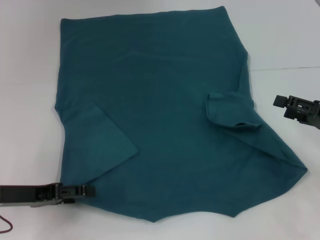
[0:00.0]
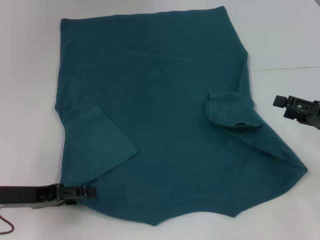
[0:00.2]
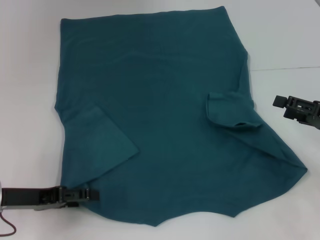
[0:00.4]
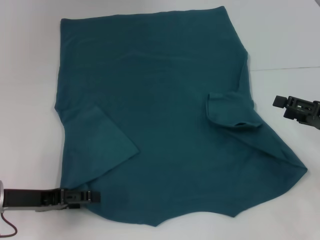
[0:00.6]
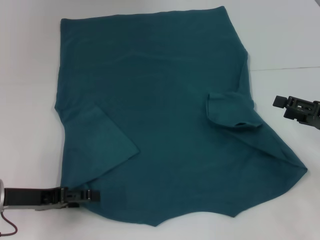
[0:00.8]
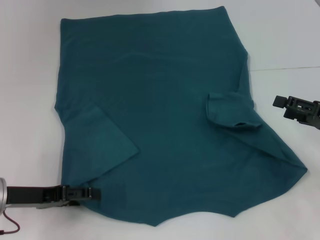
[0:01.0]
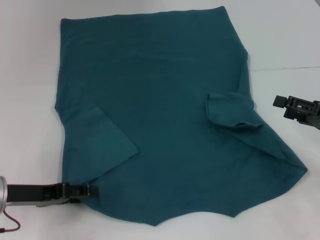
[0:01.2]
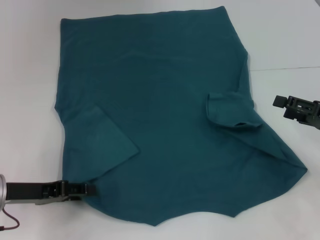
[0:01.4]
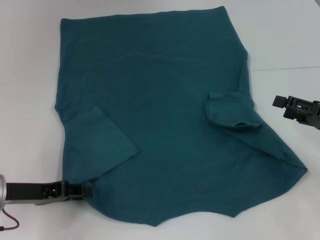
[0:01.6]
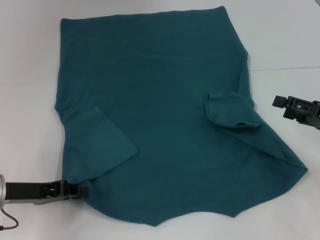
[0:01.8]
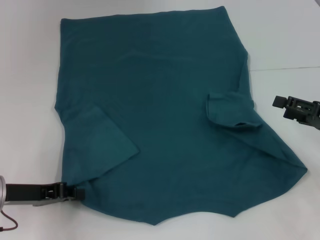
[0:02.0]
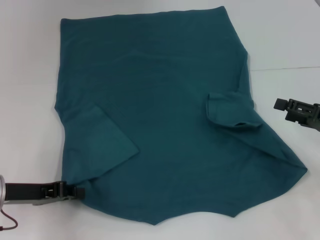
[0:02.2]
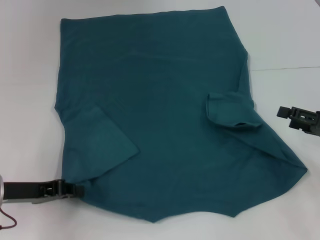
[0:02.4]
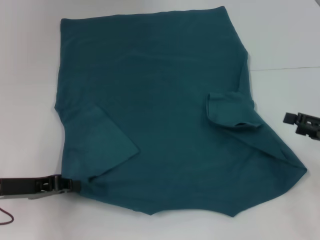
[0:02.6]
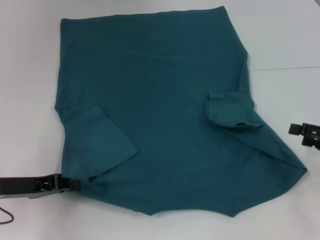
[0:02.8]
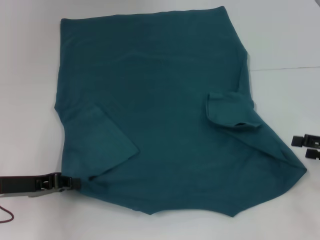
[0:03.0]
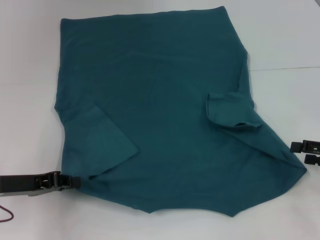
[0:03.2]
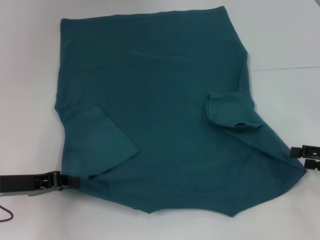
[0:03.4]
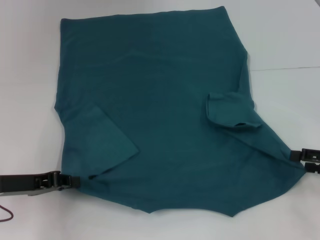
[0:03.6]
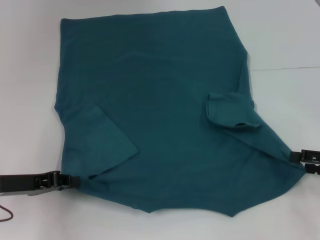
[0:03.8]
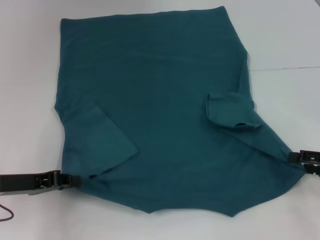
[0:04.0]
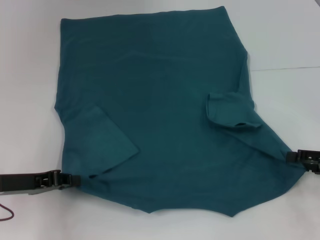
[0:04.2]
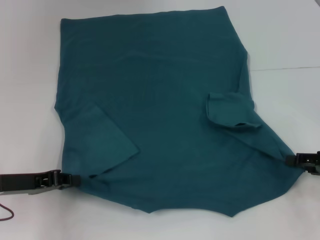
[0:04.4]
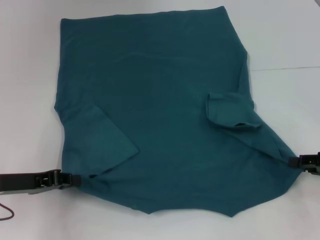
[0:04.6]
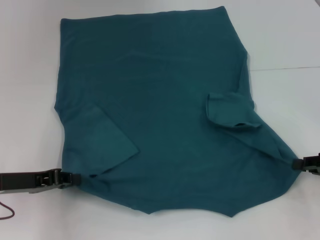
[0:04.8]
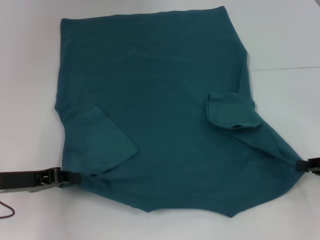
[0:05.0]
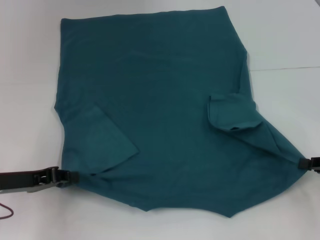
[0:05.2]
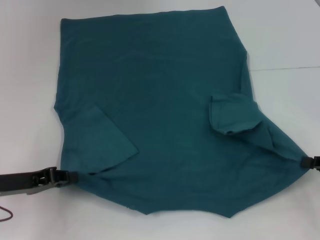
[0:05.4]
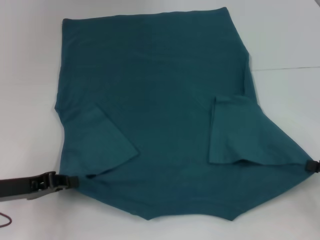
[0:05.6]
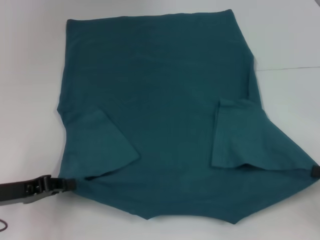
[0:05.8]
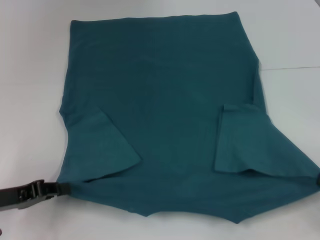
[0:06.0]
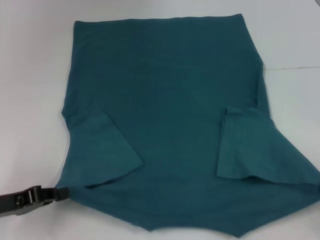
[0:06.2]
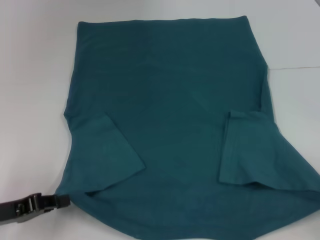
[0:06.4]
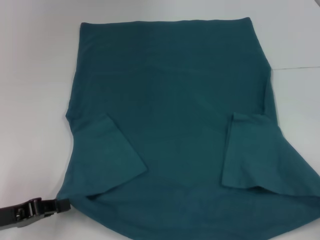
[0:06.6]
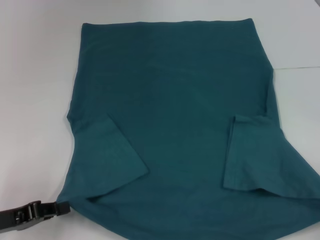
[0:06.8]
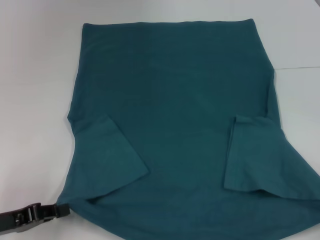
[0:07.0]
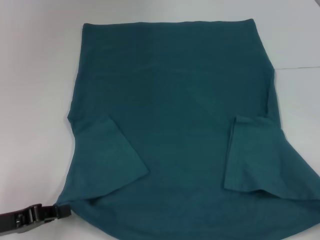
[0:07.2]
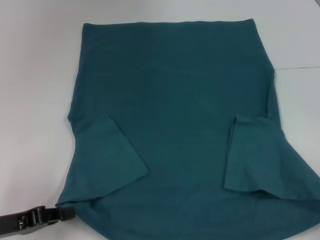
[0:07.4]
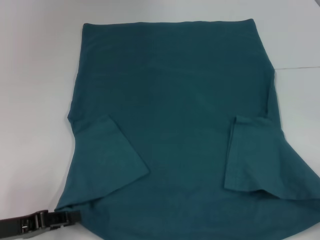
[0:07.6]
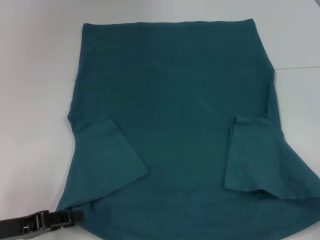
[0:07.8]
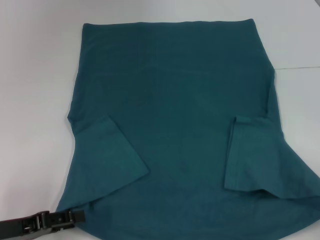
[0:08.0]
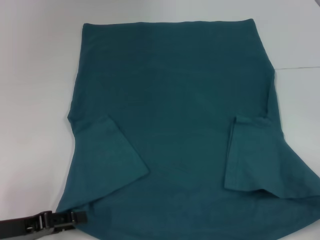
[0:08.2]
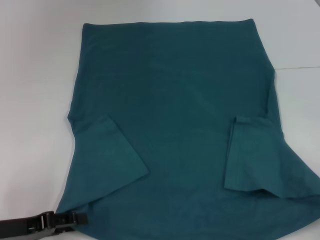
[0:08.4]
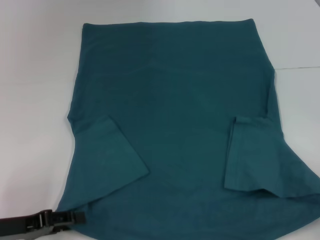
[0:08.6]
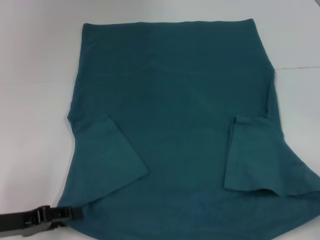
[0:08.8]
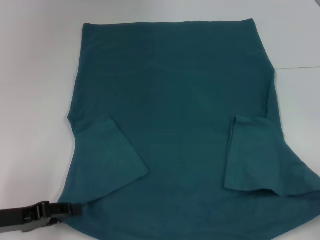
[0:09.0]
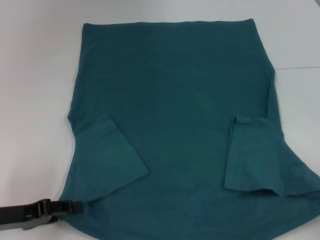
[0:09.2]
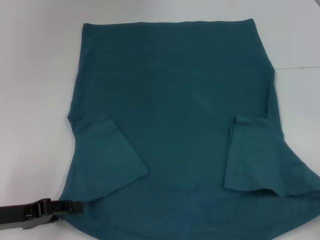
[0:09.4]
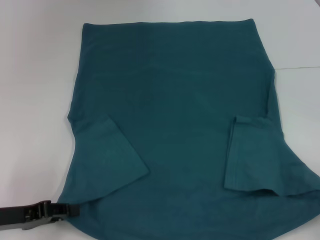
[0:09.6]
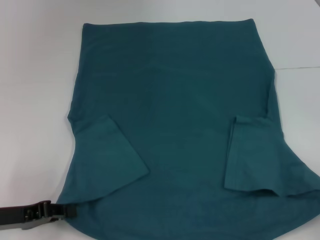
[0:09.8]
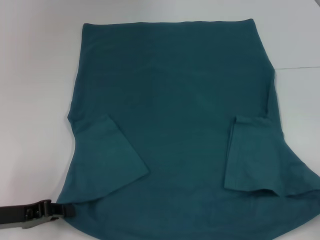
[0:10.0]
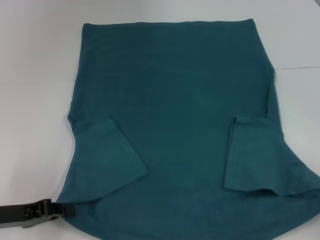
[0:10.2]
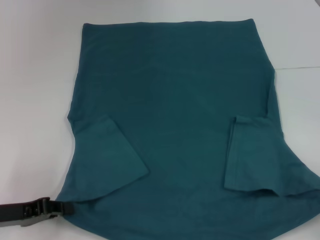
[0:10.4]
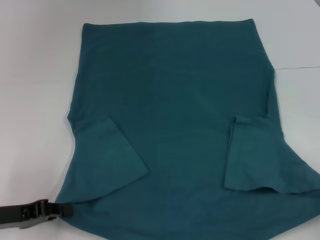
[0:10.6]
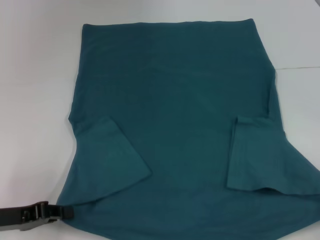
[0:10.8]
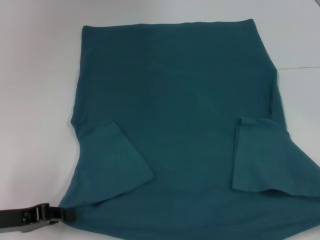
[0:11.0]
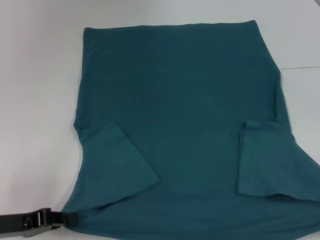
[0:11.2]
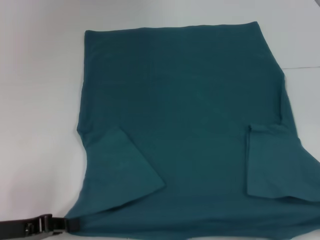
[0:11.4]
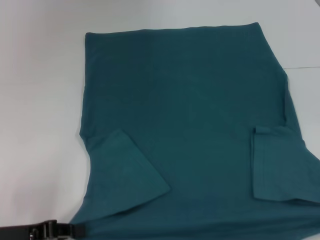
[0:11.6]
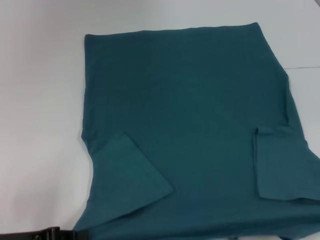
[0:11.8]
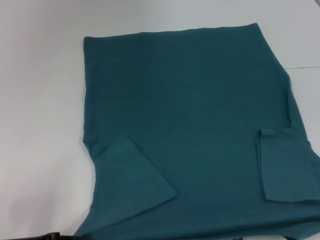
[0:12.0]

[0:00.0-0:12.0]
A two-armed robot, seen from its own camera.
Step, 0:00.0 to 0:02.8: Grab the bottom left corner with your left hand.
Step, 0:03.0 to 0:05.0: Grab the bottom right corner with your right hand.
0:00.0 to 0:01.6: Both grippers stay put.
0:01.6 to 0:03.0: The left gripper closes its fingers.
0:03.0 to 0:04.4: There are only small adjustments of the grippers.
0:04.4 to 0:06.0: The right gripper travels backward by roughly 5 cm, and closes.
0:07.6 to 0:09.0: The left gripper opens up.
0:09.0 to 0:10.4: The left gripper closes.
0:10.4 to 0:12.0: The right gripper is displaced backward by some 5 cm.

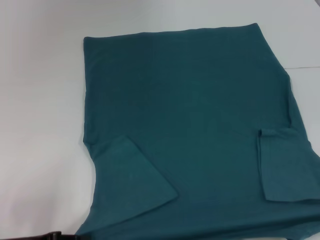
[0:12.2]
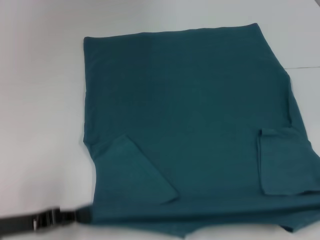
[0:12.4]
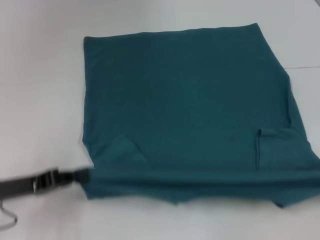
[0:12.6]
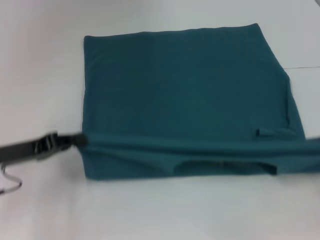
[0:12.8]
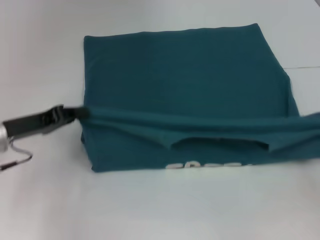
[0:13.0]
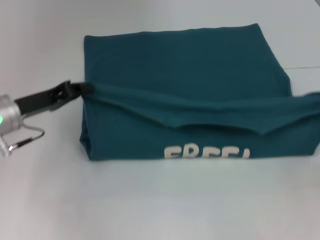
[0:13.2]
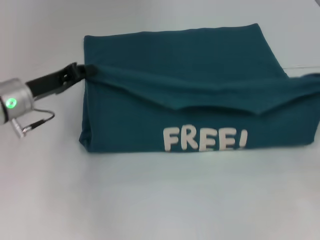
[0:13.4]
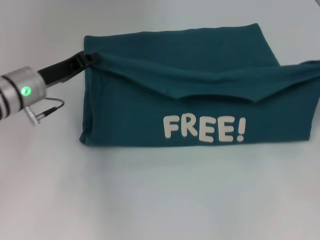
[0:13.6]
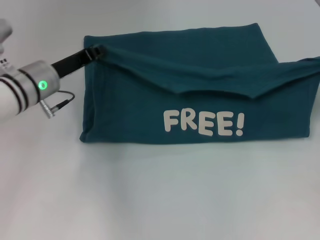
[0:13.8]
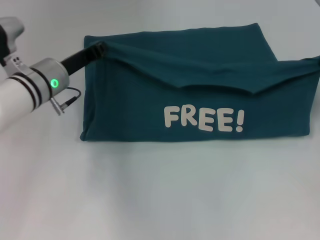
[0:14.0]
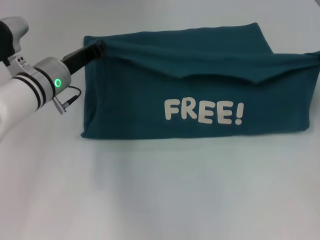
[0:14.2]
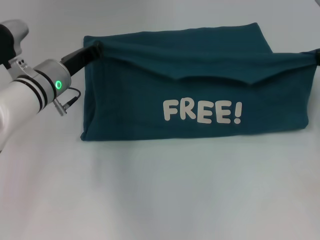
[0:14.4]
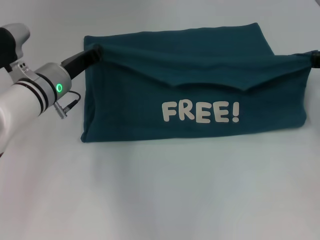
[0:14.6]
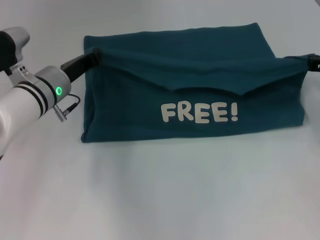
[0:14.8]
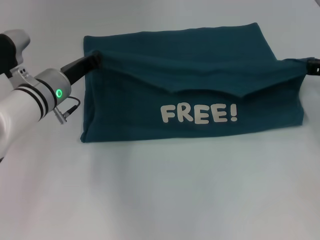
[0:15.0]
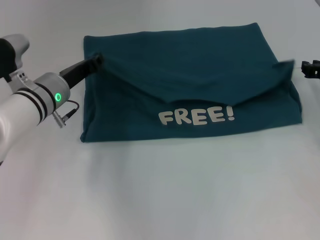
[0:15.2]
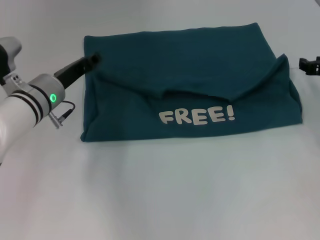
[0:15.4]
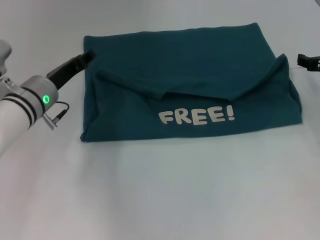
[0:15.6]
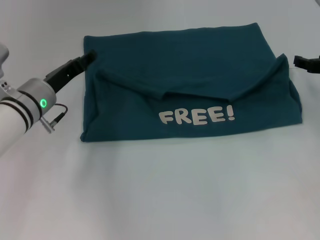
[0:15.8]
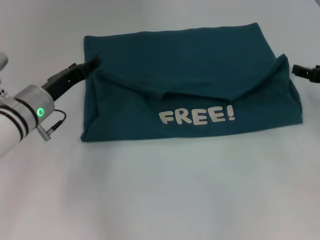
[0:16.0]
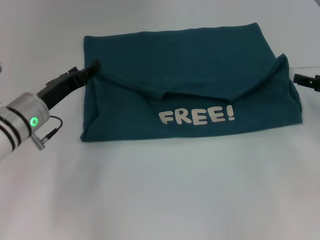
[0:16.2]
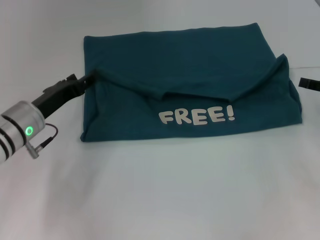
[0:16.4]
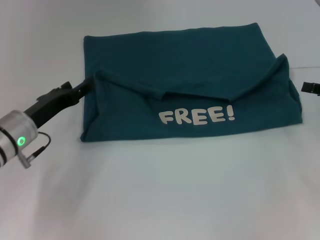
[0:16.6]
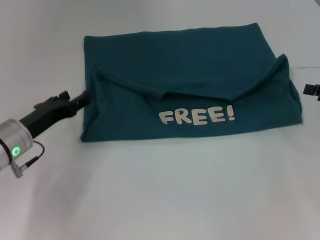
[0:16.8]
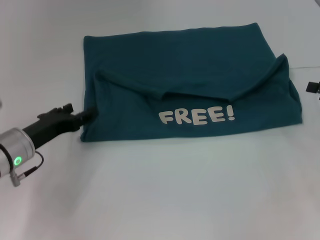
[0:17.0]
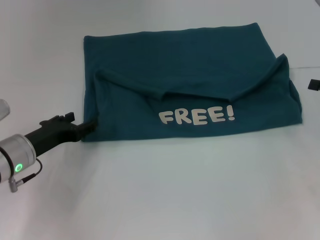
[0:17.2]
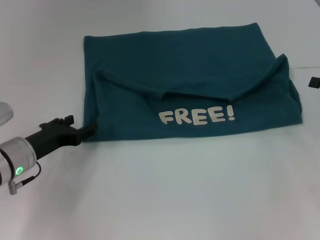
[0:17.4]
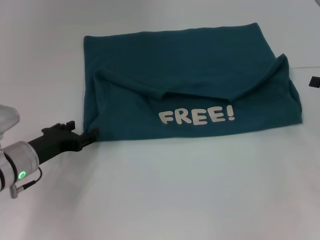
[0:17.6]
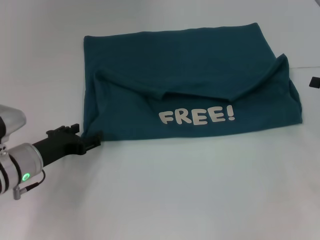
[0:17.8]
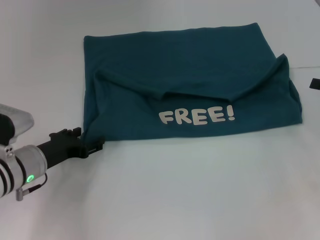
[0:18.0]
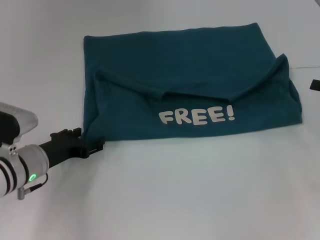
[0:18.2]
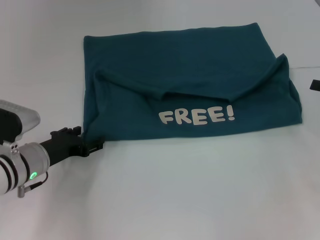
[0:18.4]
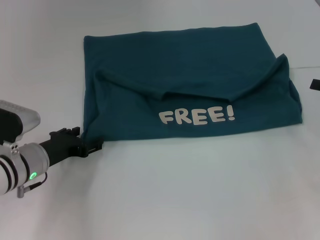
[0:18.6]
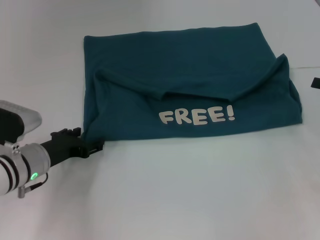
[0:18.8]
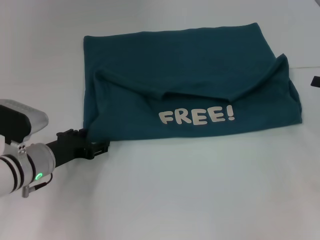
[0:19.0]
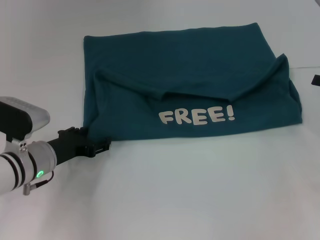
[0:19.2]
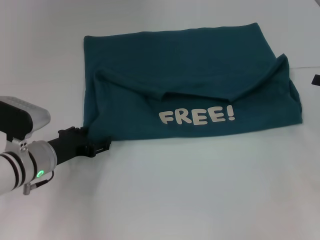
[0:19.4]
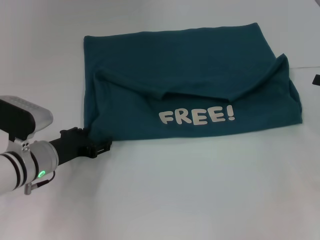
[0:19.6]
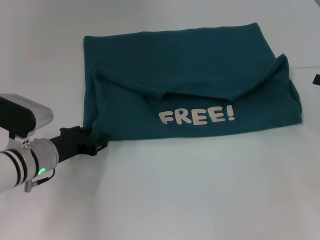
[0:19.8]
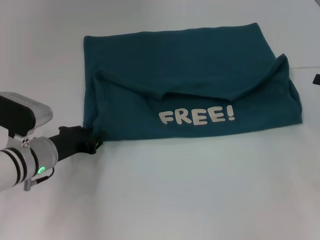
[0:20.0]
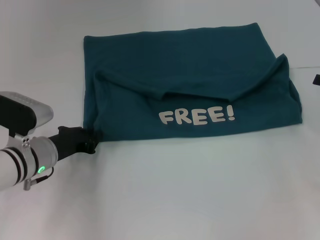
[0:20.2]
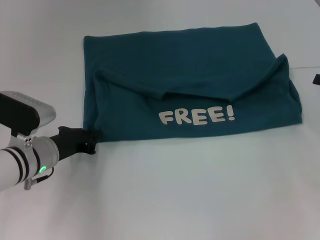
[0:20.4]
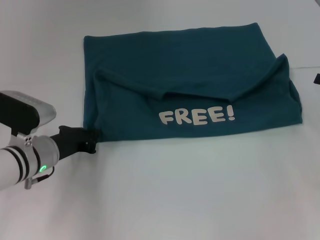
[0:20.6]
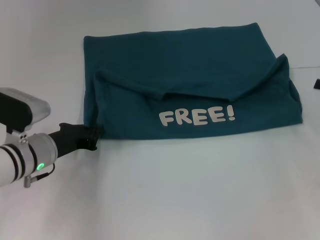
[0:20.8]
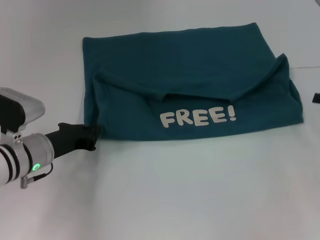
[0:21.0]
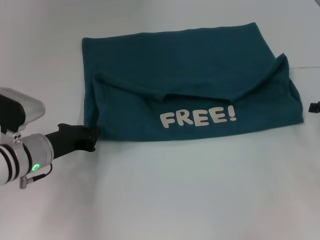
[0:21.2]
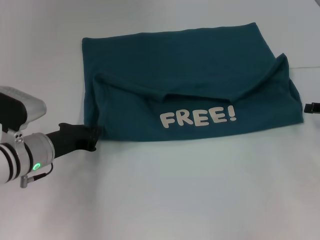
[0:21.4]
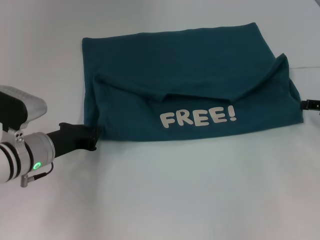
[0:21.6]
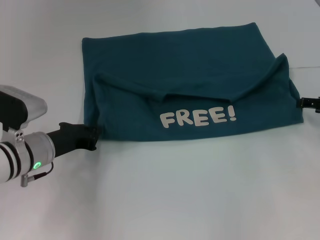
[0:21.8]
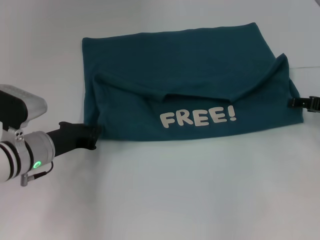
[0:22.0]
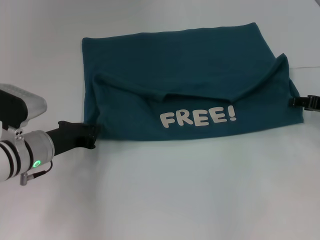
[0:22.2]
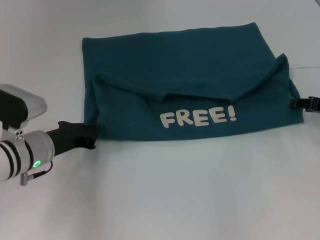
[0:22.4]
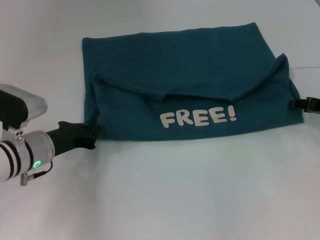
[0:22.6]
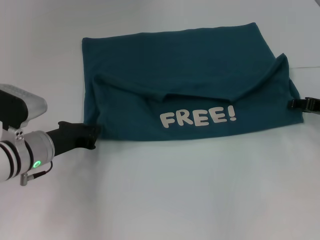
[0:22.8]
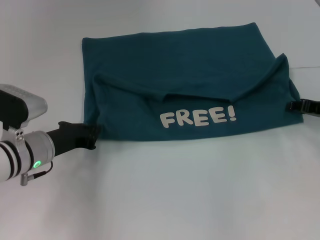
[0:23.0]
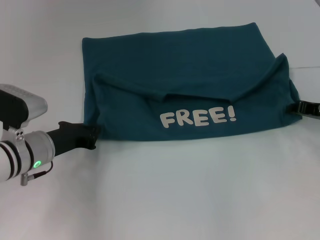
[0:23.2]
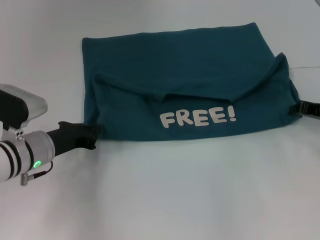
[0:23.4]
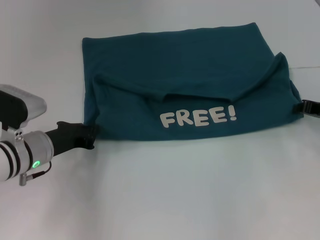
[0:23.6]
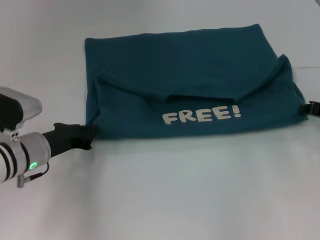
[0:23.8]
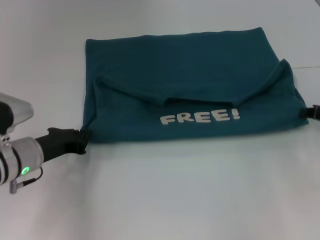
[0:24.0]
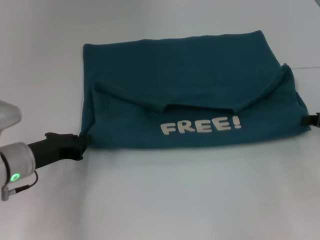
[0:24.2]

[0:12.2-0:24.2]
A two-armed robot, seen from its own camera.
Step, 0:12.2 to 0:15.6: Fold the clothes to the left.
Step, 0:12.2 to 0:15.6: Fold the clothes to the right.
0:12.2 to 0:13.8: The right gripper travels forward by approximately 25 cm. Meanwhile the left gripper travels forward, to the right and upward by roughly 25 cm.
0:13.8 to 0:15.2: The right gripper shifts by about 5 cm.
0:15.2 to 0:16.6: The right gripper is displaced backward and to the right by approximately 10 cm, and opens its fingers. Meanwhile the left gripper is displaced backward and to the left by some 10 cm, and opens up.
0:18.2 to 0:19.8: The grippers move only a little.
0:19.8 to 0:21.2: The left gripper closes up.
0:22.6 to 0:24.2: The right gripper closes up.
